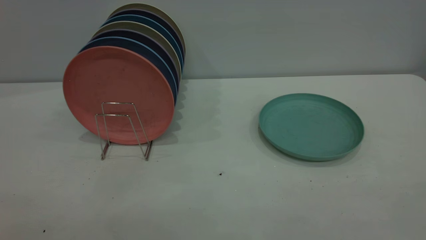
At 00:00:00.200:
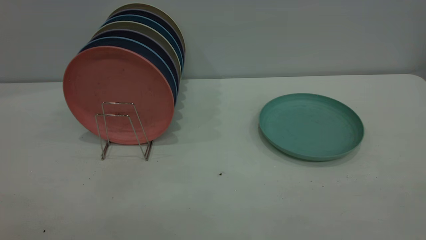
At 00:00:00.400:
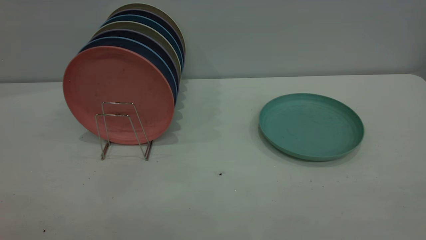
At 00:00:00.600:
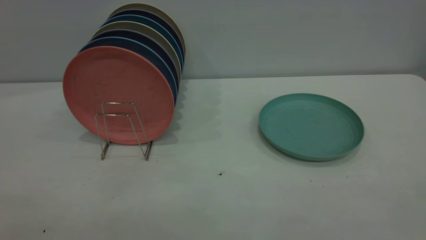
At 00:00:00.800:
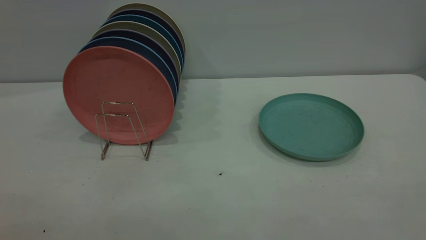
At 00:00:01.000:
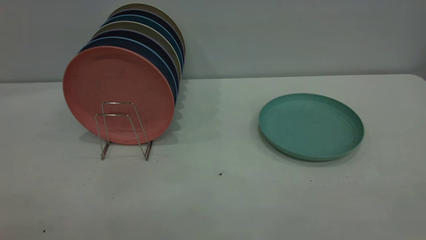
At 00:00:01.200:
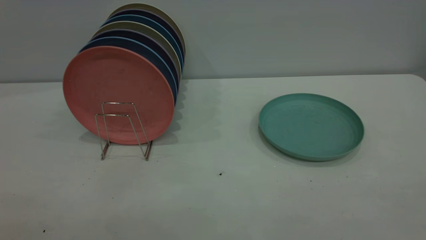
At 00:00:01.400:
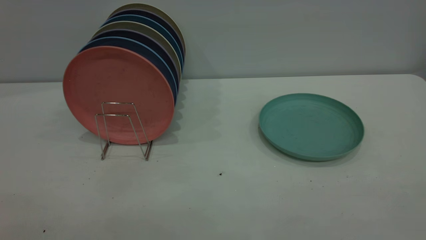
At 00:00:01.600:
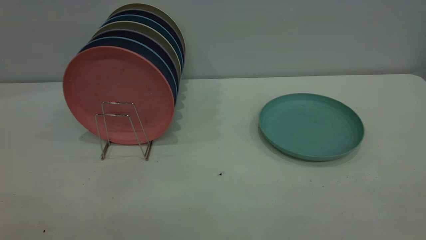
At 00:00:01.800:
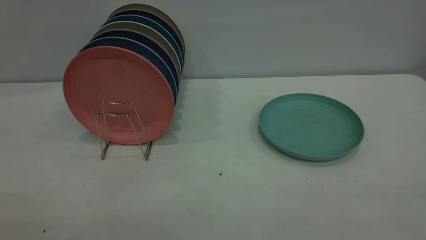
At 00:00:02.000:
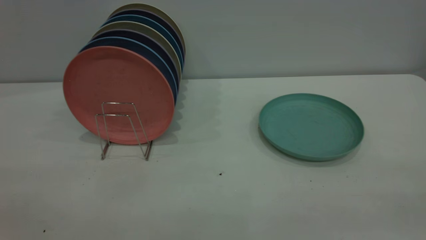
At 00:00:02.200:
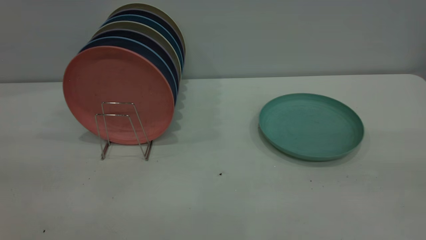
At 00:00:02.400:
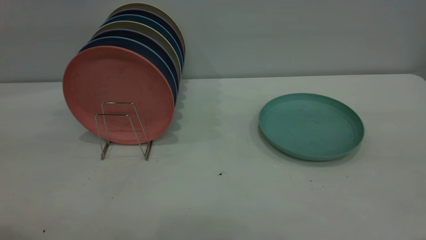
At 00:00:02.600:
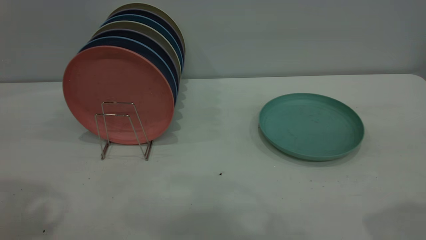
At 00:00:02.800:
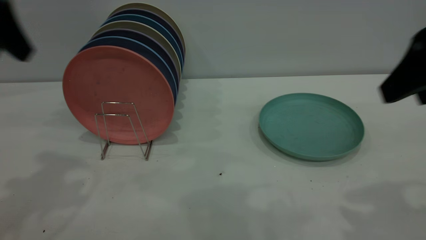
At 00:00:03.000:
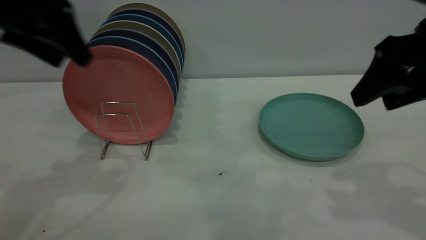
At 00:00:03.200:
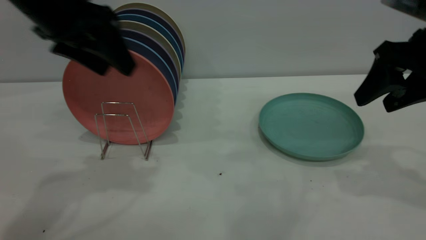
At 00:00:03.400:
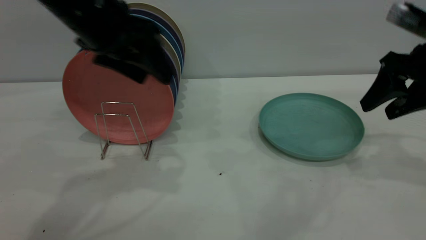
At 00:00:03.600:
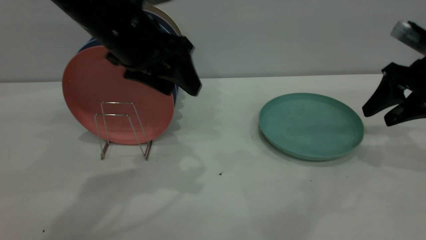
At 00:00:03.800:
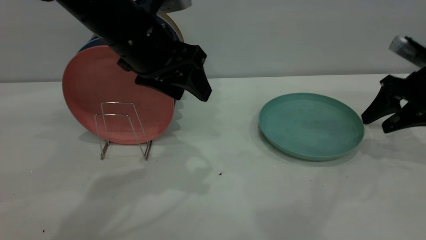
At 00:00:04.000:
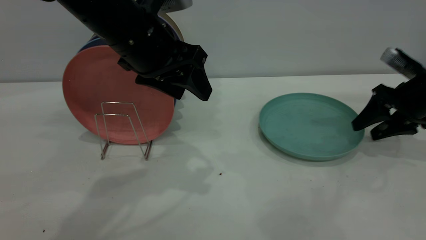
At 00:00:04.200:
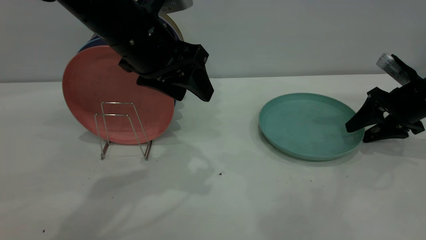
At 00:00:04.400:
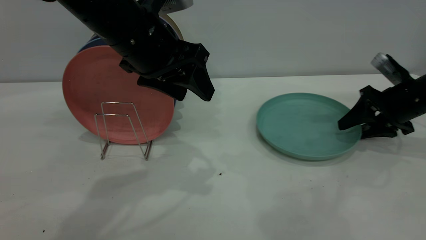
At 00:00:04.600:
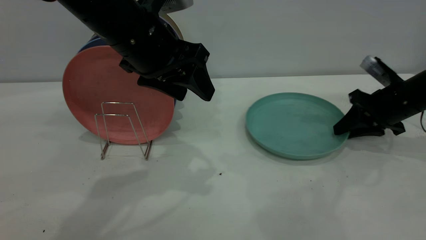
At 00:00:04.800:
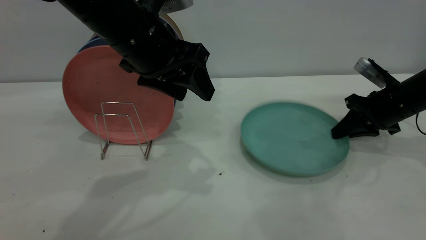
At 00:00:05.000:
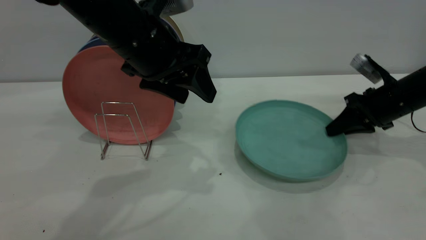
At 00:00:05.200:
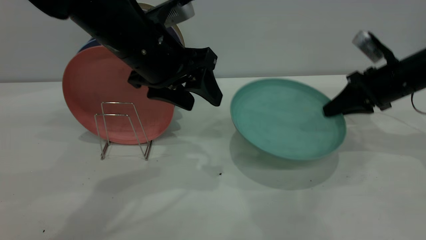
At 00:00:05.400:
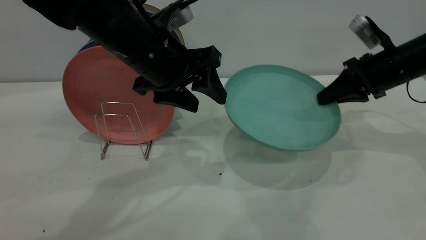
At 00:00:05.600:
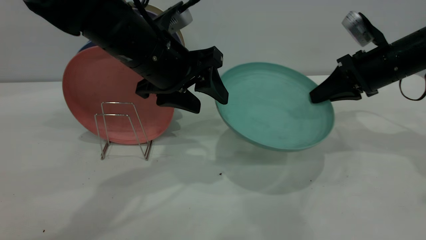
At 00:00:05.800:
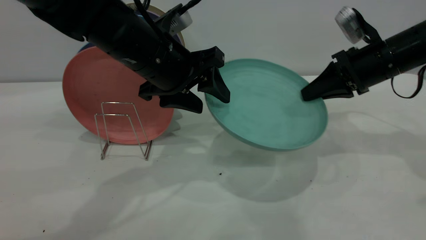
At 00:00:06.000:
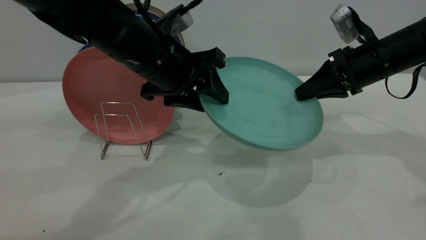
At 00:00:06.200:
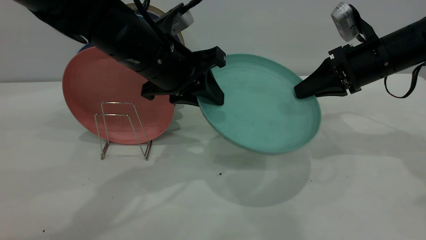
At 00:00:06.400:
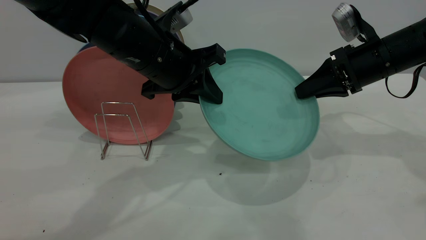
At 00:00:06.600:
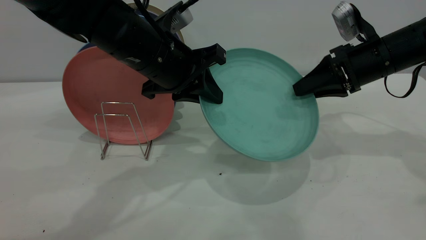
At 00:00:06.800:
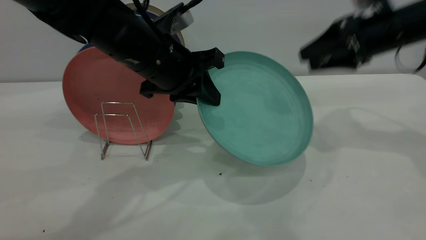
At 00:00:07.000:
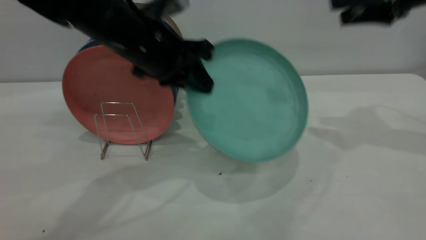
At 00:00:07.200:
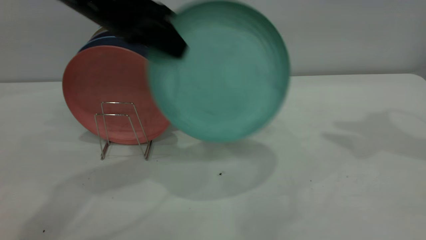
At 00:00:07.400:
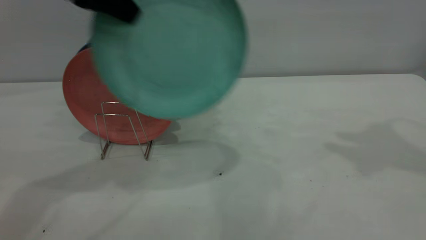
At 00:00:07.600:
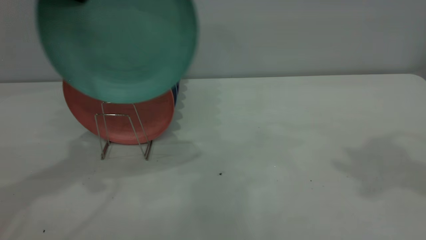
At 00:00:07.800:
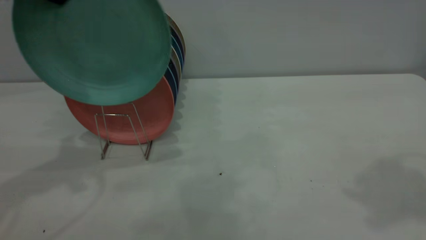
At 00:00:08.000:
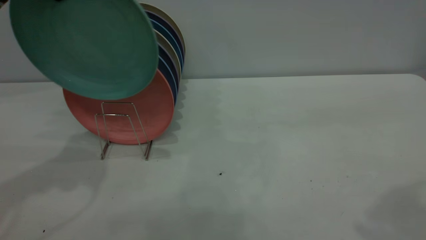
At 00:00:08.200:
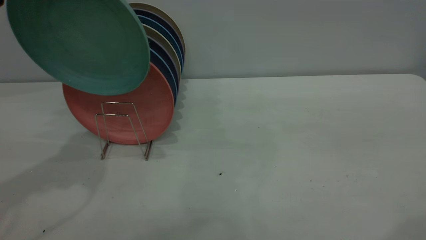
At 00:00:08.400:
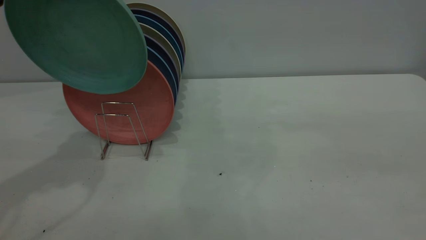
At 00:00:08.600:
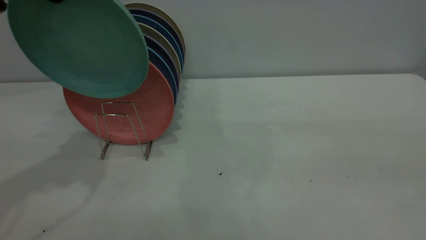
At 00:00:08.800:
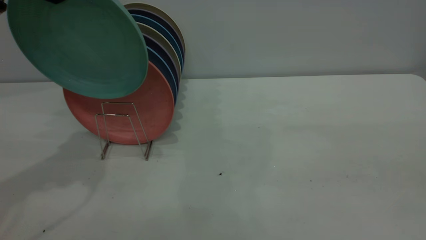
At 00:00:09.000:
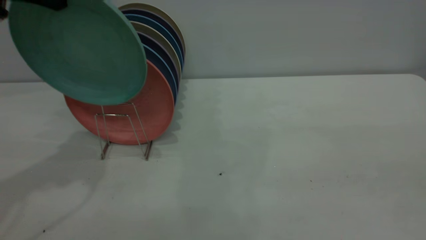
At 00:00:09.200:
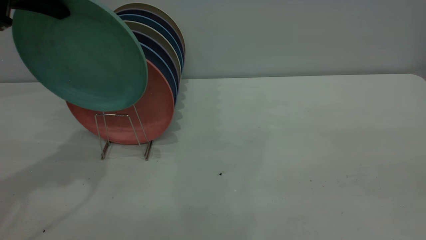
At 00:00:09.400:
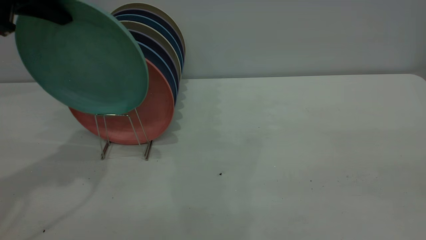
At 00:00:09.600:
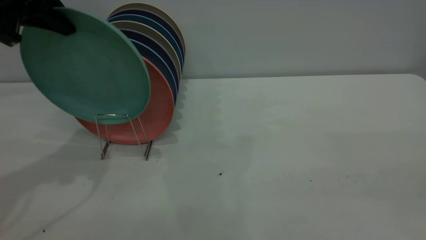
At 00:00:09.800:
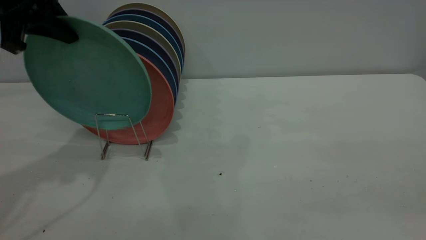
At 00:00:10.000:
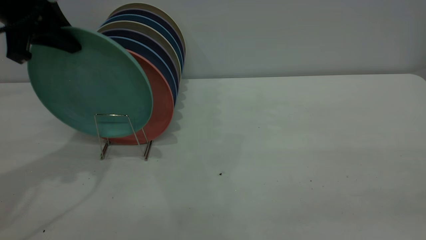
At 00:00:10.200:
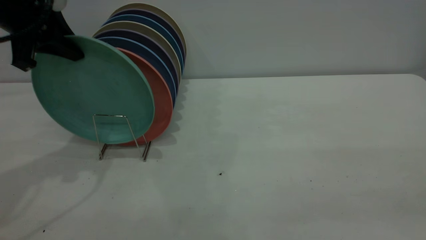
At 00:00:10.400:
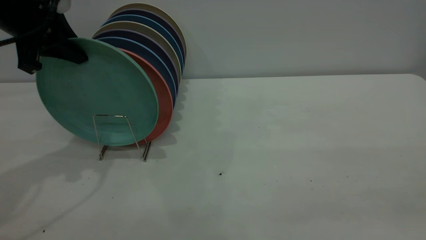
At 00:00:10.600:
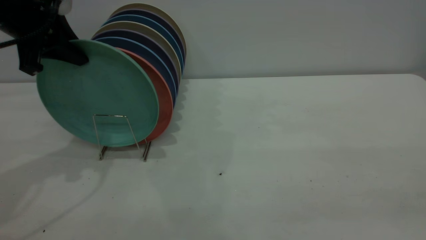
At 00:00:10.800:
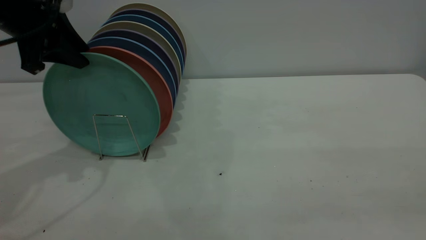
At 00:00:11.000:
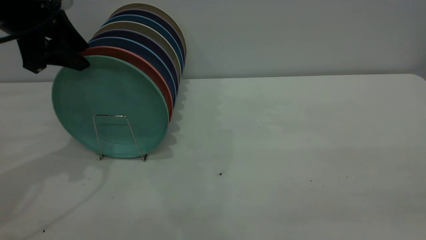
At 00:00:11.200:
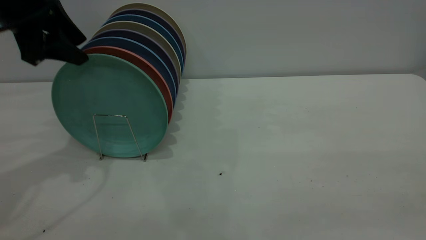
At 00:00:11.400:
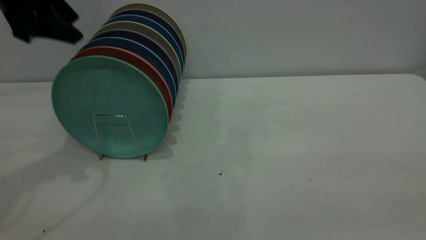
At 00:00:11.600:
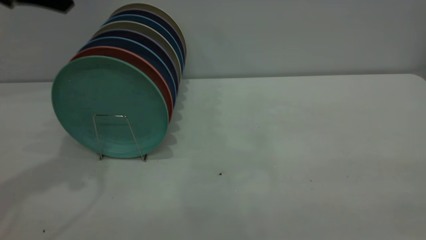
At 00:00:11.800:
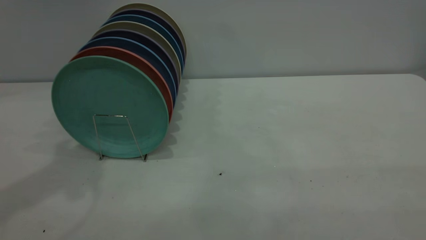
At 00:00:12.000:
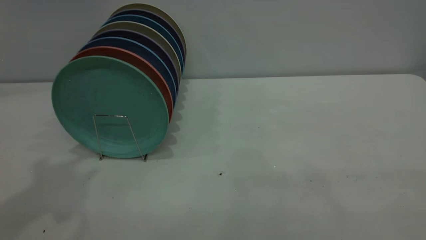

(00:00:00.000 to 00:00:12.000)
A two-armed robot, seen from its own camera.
Task of the whole recording: the right gripper grasp the green plate, the right gripper pass the green plate to the left gripper, and the left gripper place the green plate on the plate rack.
Step, 00:00:00.000 - 00:00:05.000: Pick up the plate with the right gripper.
Step, 00:00:05.200 - 00:00:06.600: Pass the plate from the right gripper to the left gripper.
Step, 00:00:06.800 - 00:00:11.200: Place the plate on the shelf.
00:00:00.000 - 00:00:01.600: Both grippers stay put.
00:00:01.600 - 00:00:03.000: The grippers both shift forward by about 35 cm. The right gripper opens its fingers.
00:00:03.000 - 00:00:04.400: The right gripper heads downward, forward and to the right, covering roughly 25 cm, while the left gripper moves to the right and downward, about 15 cm.
00:00:04.400 - 00:00:06.000: The right gripper shifts some 10 cm to the left and upward, and closes up, while the left gripper closes its fingers.
00:00:06.000 - 00:00:07.600: The right gripper is displaced upward and backward by roughly 30 cm, and opens up. Meanwhile the left gripper shifts approximately 25 cm to the left and upward, and closes up.
00:00:07.600 - 00:00:09.000: The right gripper shifts some 25 cm backward.
00:00:09.000 - 00:00:10.400: The left gripper moves downward, roughly 5 cm.
00:00:10.400 - 00:00:12.000: The left gripper shifts about 20 cm upward and backward, and opens up.
